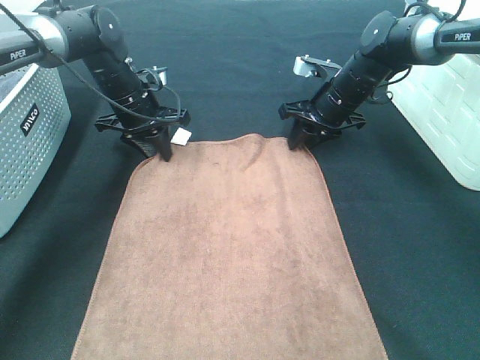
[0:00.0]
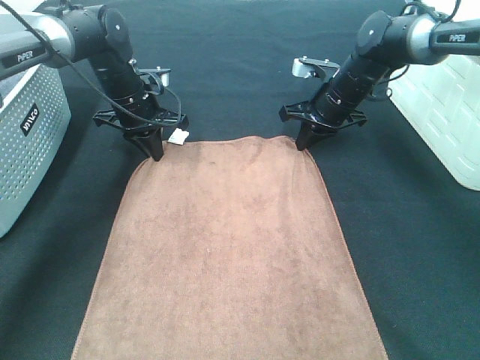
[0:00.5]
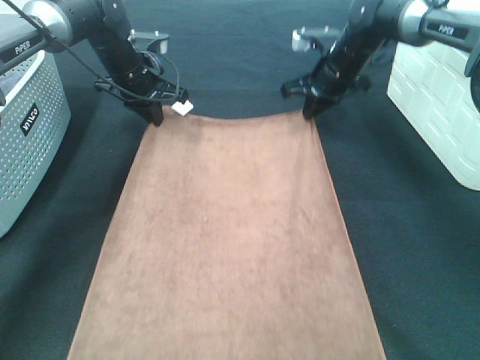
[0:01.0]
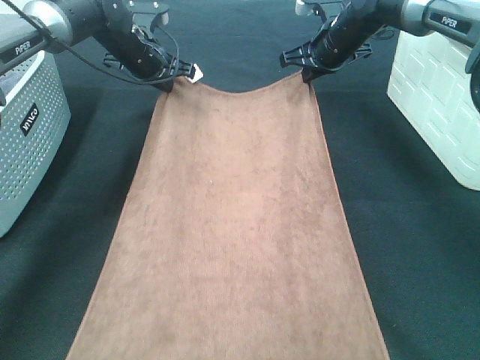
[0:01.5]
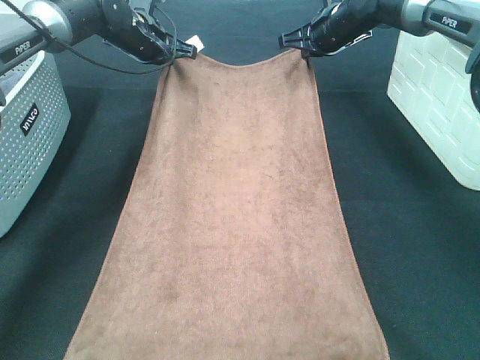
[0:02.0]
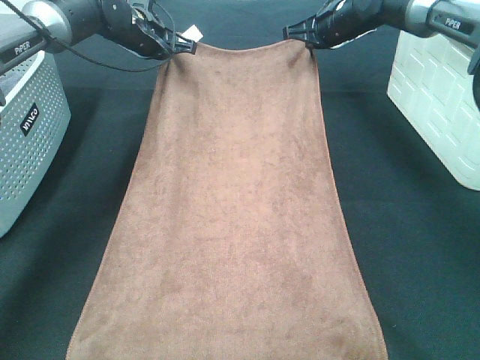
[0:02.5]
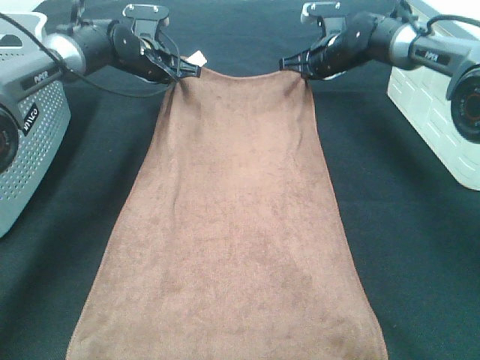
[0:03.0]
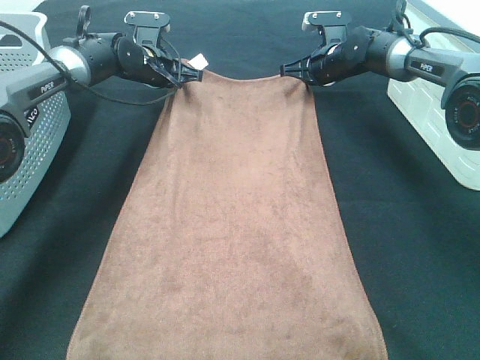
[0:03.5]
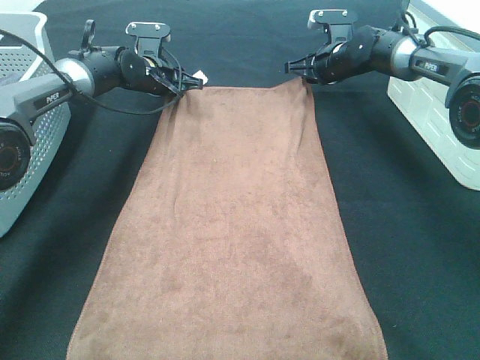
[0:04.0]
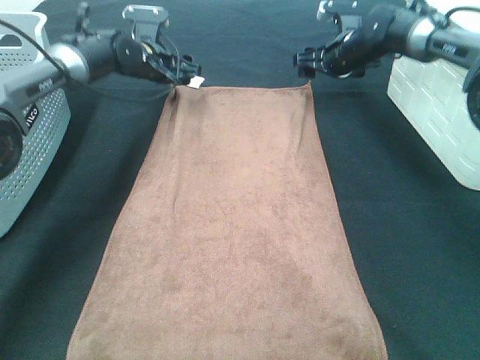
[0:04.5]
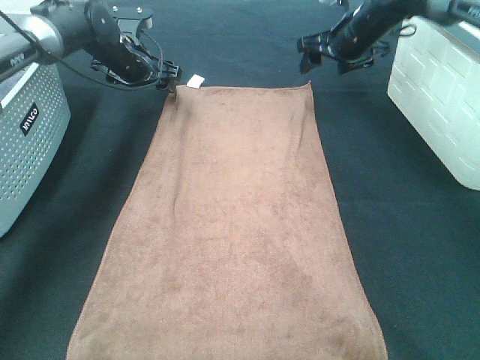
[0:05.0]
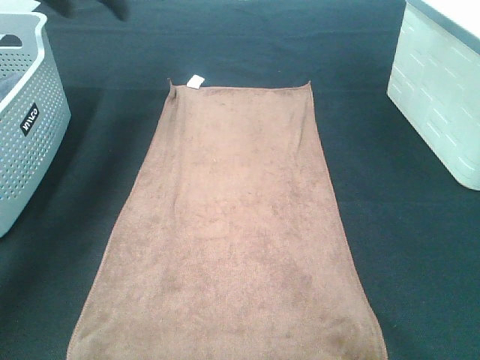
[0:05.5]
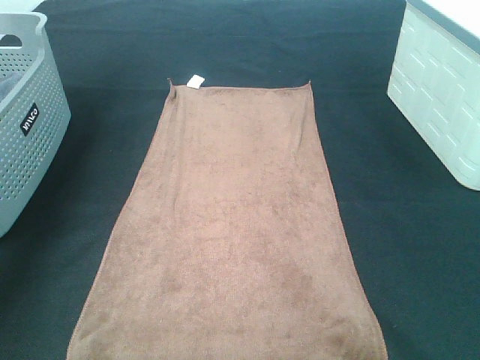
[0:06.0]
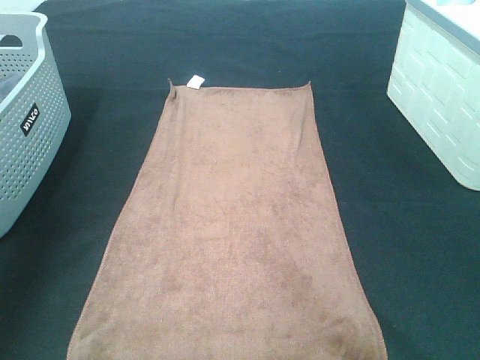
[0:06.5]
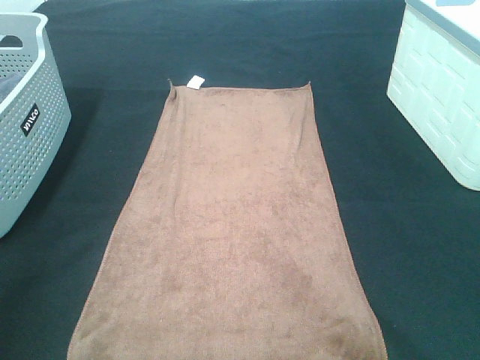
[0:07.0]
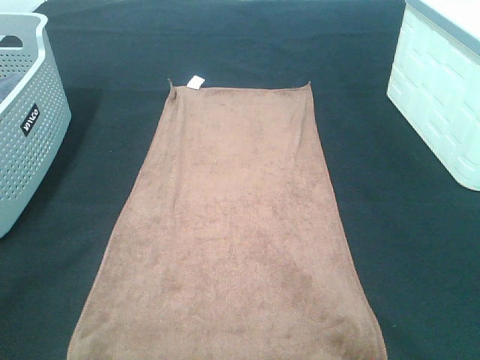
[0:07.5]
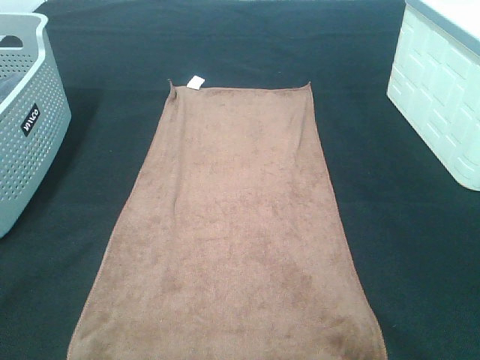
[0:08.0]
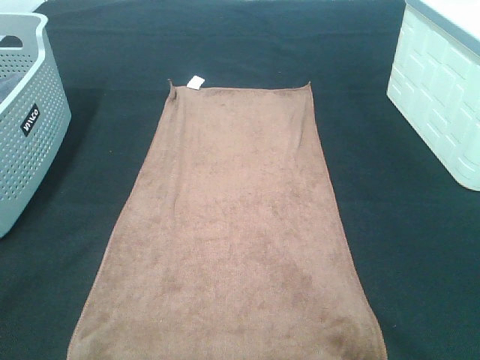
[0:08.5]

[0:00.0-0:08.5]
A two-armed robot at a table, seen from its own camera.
Task of the whole recording: Remove the towel and place it.
0:00.0 to 0:02.0: The right gripper travels upward and forward by some 10 cm, and closes up. The left gripper travels forward and upward by roughly 10 cm.
0:02.0 to 0:04.0: The grippers both shift downward by roughly 5 cm. The right gripper opens, while the left gripper opens its fingers.
0:04.0 to 0:06.5: The left gripper shifts approximately 50 cm backward, upward and to the left. The right gripper is displaced backward and upward by some 50 cm, and opens its fingers.
0:06.5 to 0:08.5: The left gripper travels backward and downward by some 25 cm.

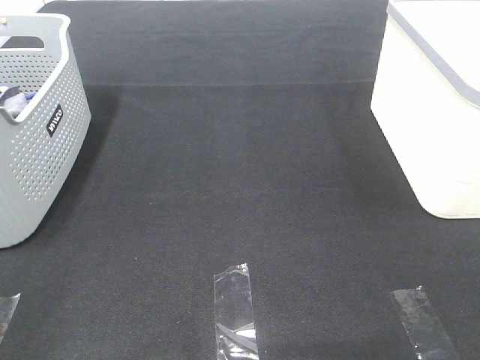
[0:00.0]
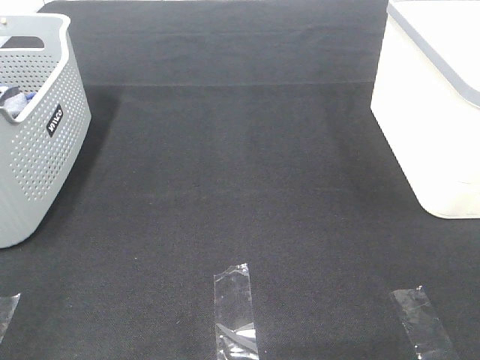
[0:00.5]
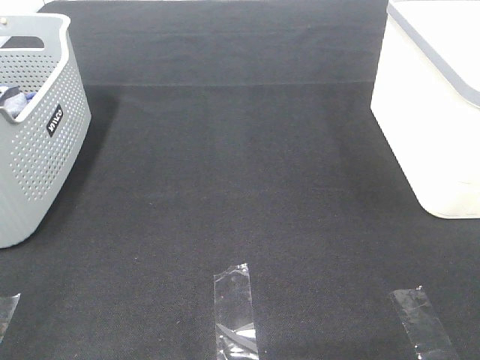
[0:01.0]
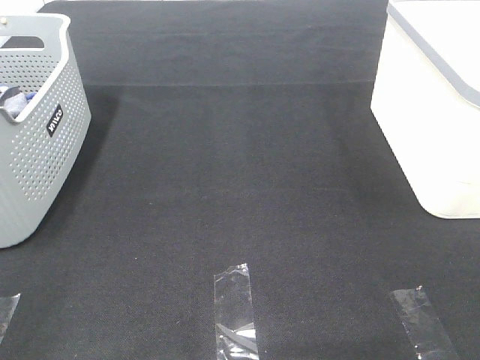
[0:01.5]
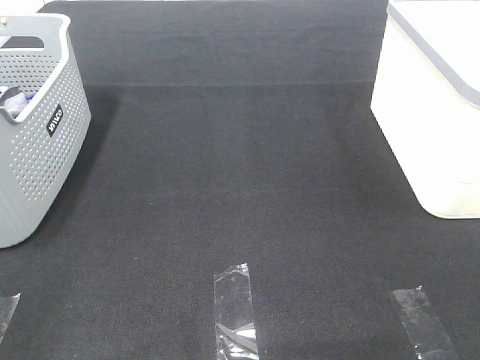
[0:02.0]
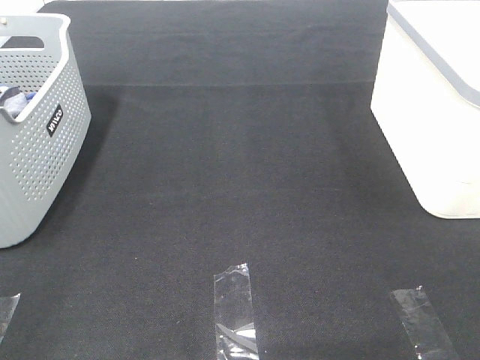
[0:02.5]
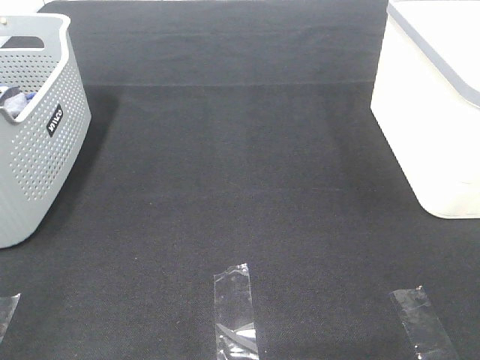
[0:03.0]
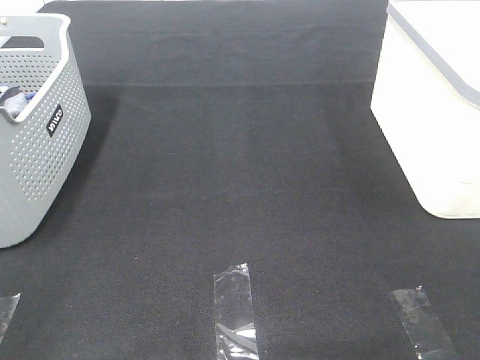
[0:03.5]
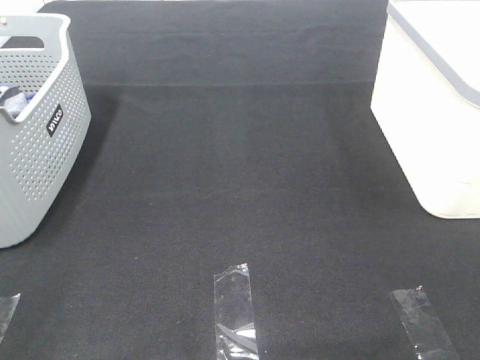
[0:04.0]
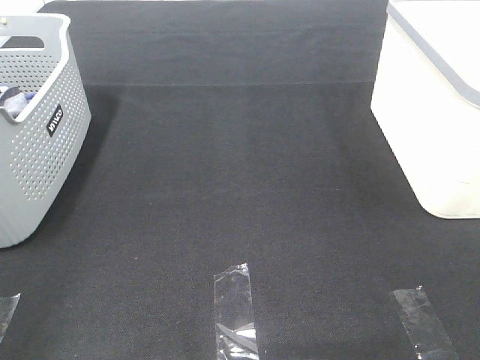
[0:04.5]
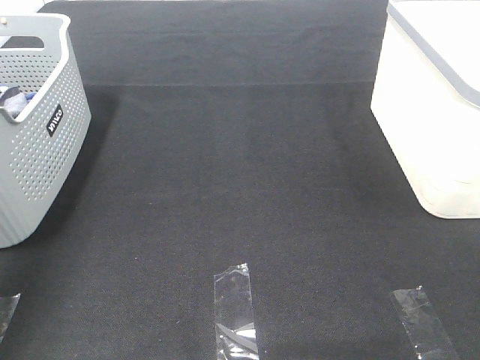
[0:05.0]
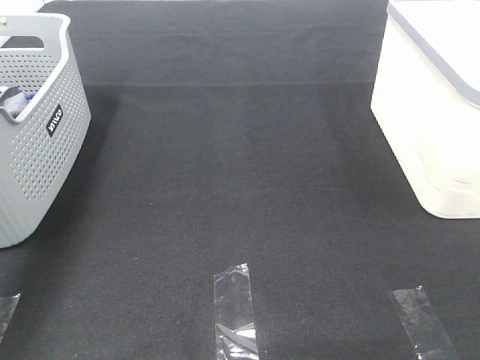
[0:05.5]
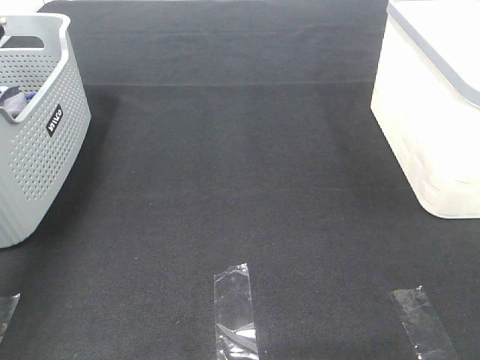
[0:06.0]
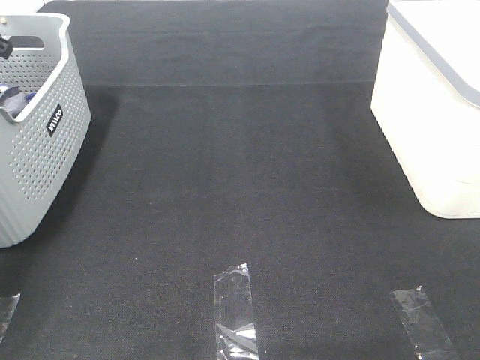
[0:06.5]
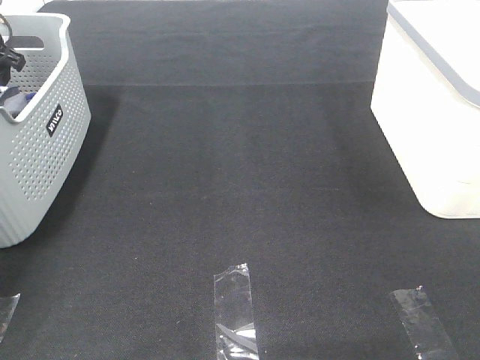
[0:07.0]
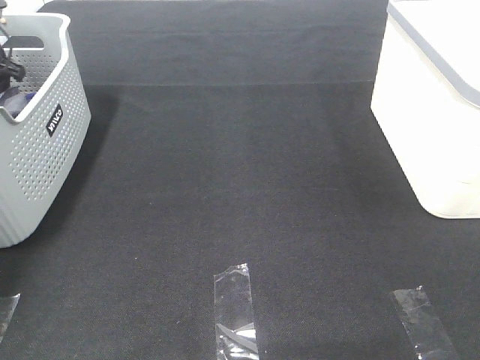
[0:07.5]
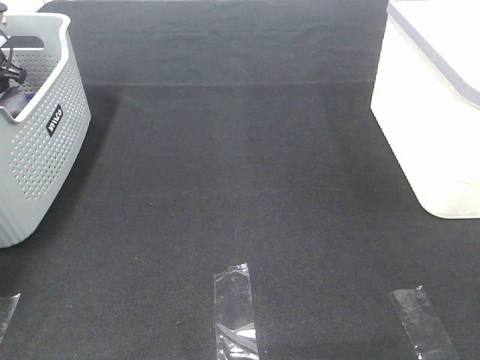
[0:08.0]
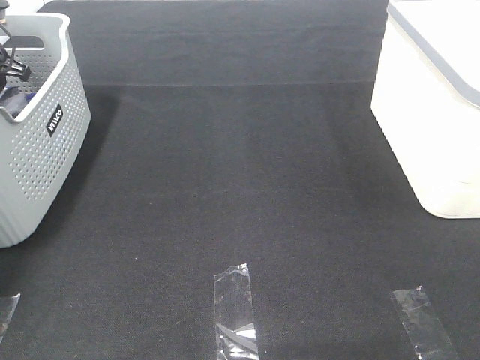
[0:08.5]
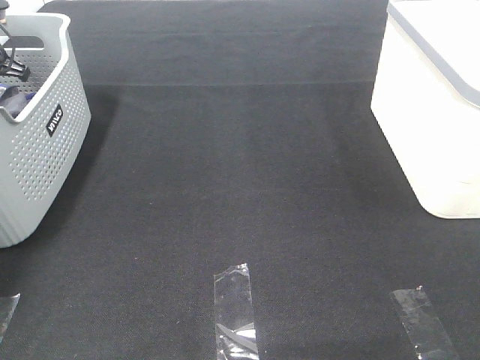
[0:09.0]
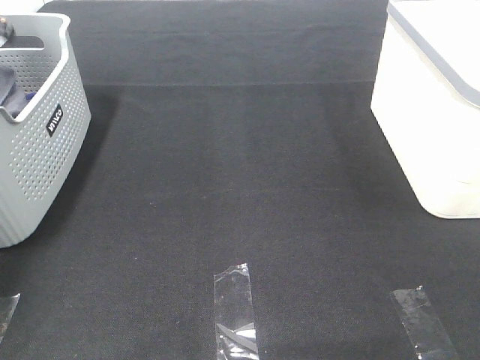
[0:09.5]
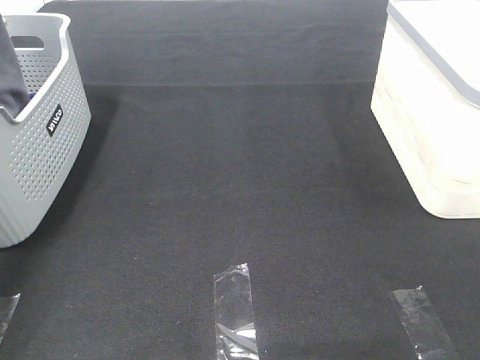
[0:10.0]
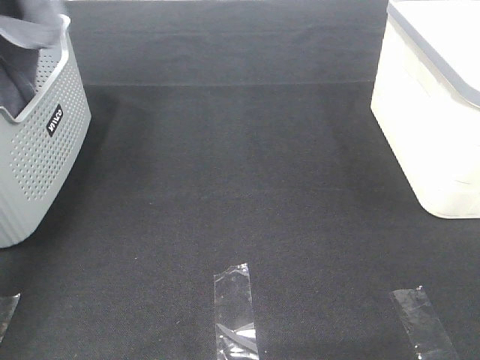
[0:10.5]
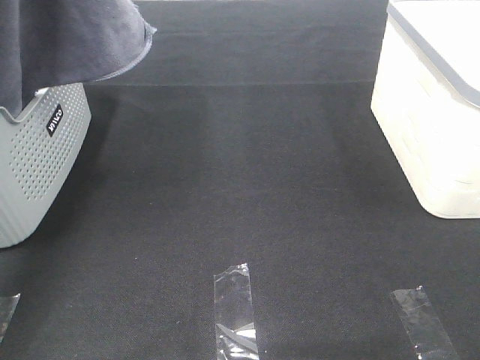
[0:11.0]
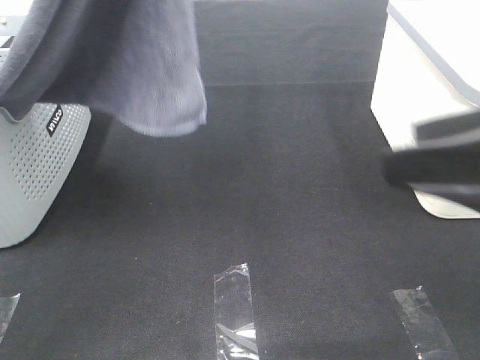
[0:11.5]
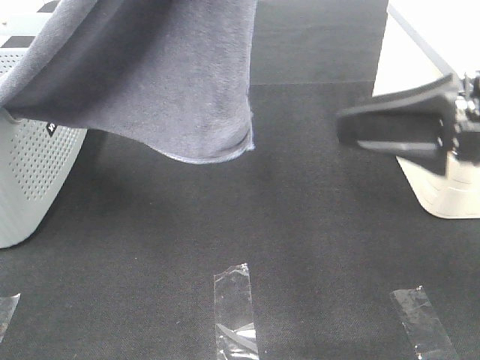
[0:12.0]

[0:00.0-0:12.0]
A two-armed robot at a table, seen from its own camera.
Task of the whole recording: Remove the towel and place it.
0:00.0 to 0:04.0: The two grippers keep their place.
0:04.0 to 0:06.0: The left gripper travels forward by some 40 cm.
0:06.0 to 0:08.0: The left gripper moves downward, forward and to the left, roughly 15 cm.
0:08.0 to 0:10.0: The left gripper goes roughly 25 cm upward and backward, and closes up.
0:10.0 to 0:12.0: The right gripper moves forward, some 20 cm. The left gripper travels to the right and backward by some 35 cm.

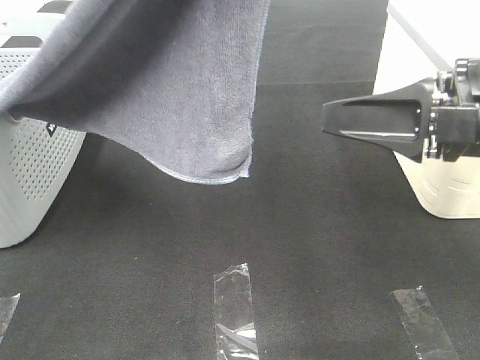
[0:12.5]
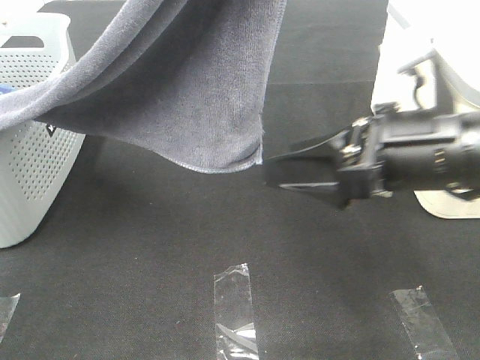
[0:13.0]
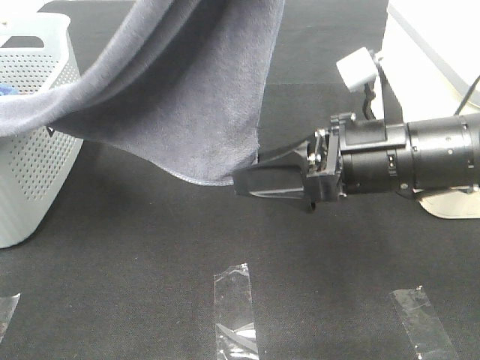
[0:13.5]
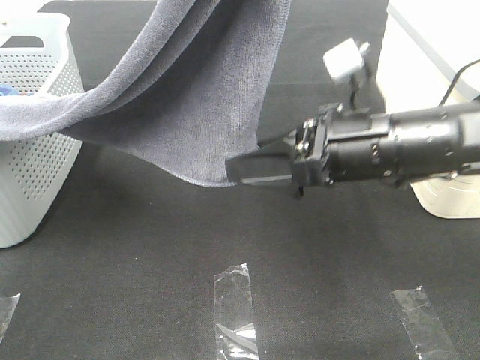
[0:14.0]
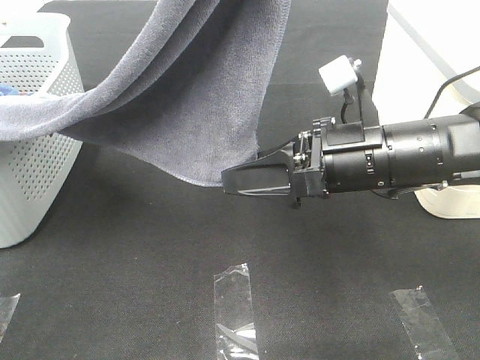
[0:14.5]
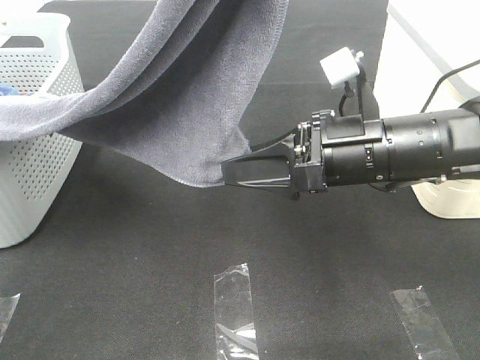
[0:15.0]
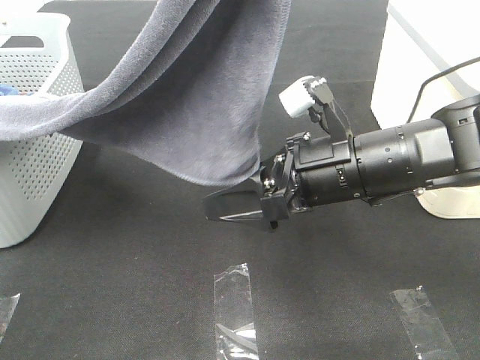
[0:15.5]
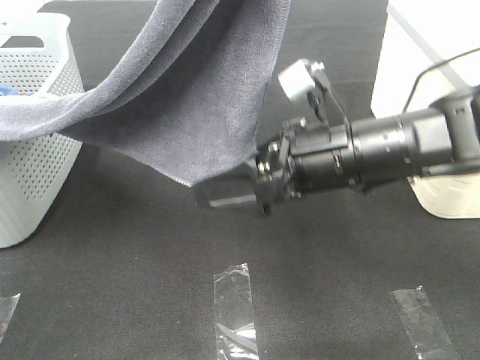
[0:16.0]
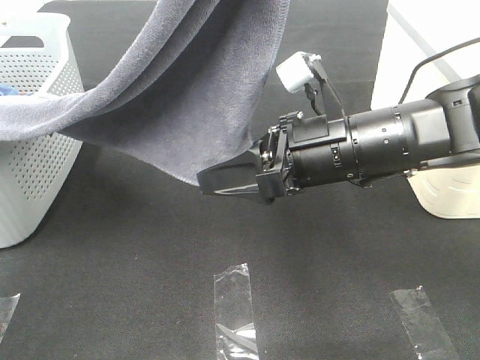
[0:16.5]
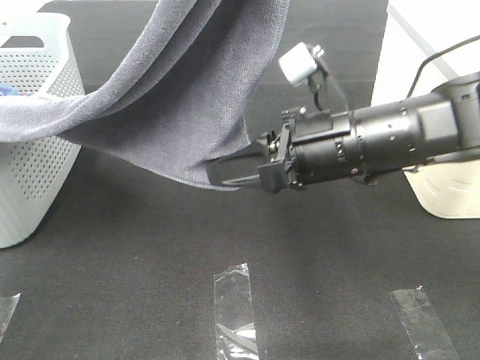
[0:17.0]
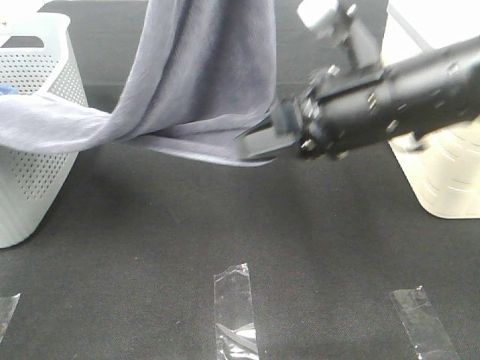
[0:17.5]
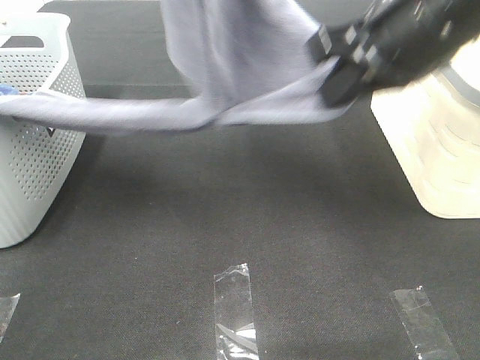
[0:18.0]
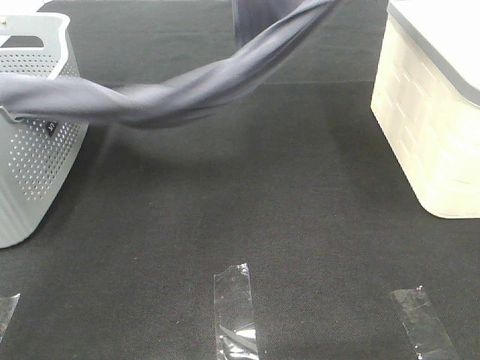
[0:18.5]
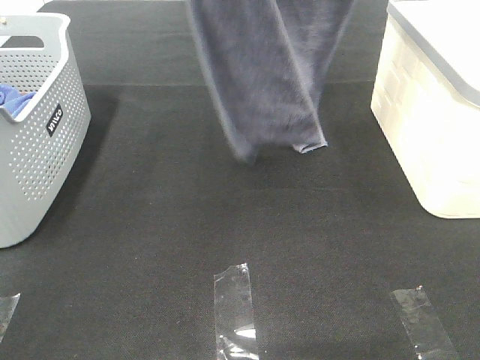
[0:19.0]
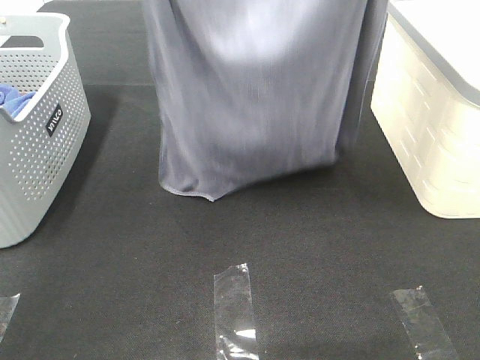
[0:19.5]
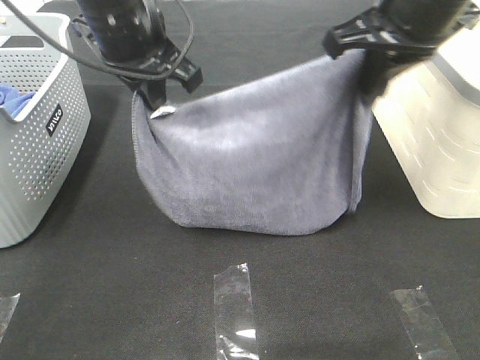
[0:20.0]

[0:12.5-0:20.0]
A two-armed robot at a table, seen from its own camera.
Task of the whole recording: Remove the towel and place it.
Step, 0:12.5 to 0:15.0: Right hand: grab a corner of the grey towel and straighten it.
Step, 0:15.5 to 0:20.0: Left hand: spread the grey towel flat on the table.
Step, 0:15.5 to 0:20.0: Right hand: spread the grey towel flat on the table.
0:12.5 to 0:14.5: The right gripper shifts roughly 10 cm to the left and downward.
0:14.5 to 0:16.5: The grippers move only a little.
0:16.5 to 0:18.0: The right gripper is displaced upward by about 15 cm, and closes its fingers. The left gripper travels forward by about 10 cm.
0:18.0 to 0:20.0: The right gripper travels upward and back again, about 20 cm each way, while the left gripper moves downward, roughly 15 cm.
